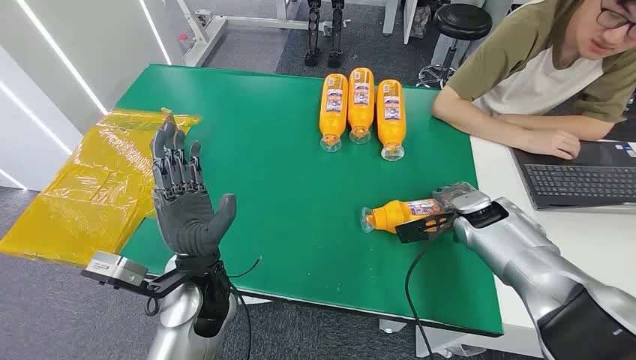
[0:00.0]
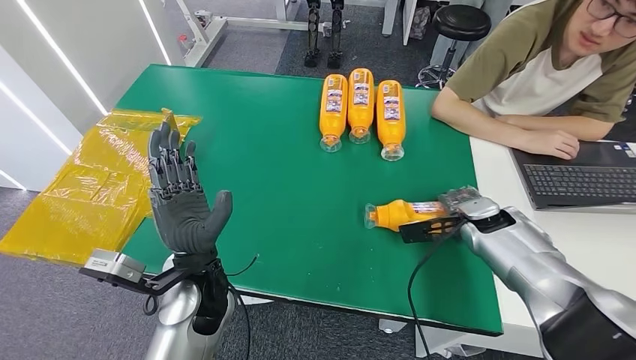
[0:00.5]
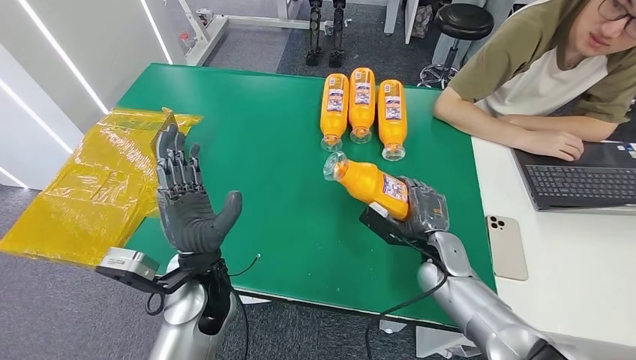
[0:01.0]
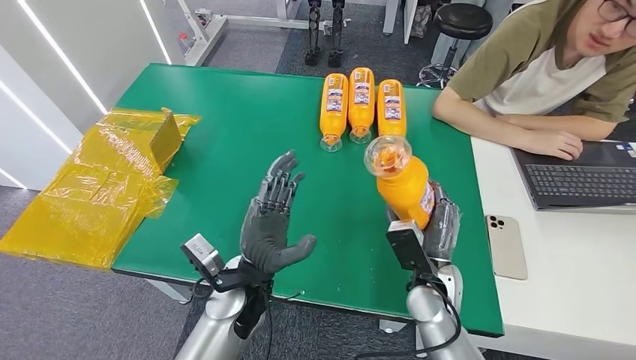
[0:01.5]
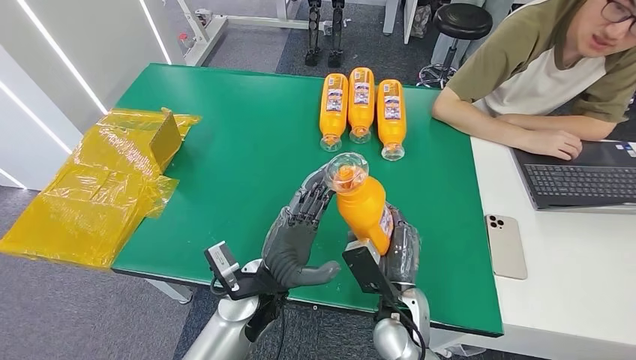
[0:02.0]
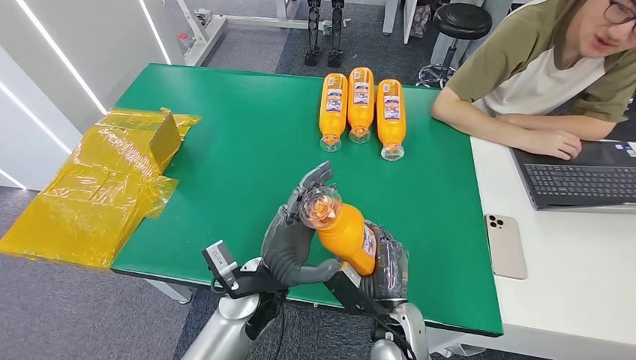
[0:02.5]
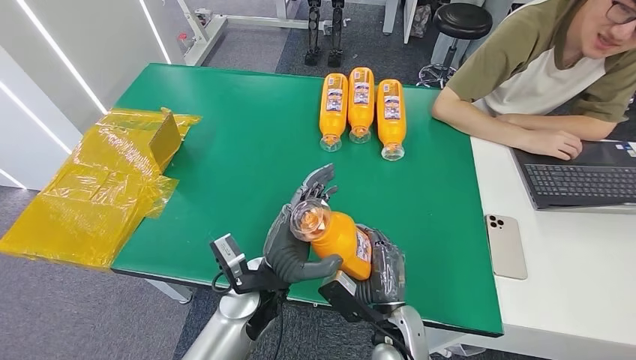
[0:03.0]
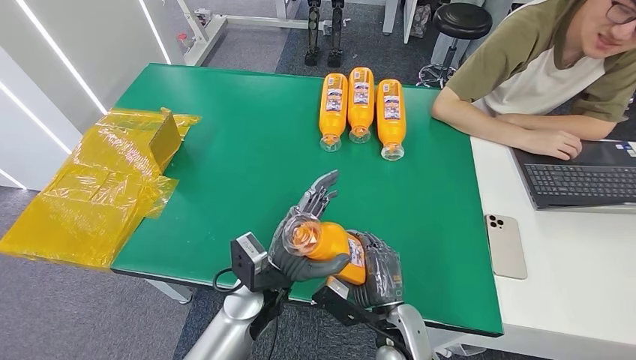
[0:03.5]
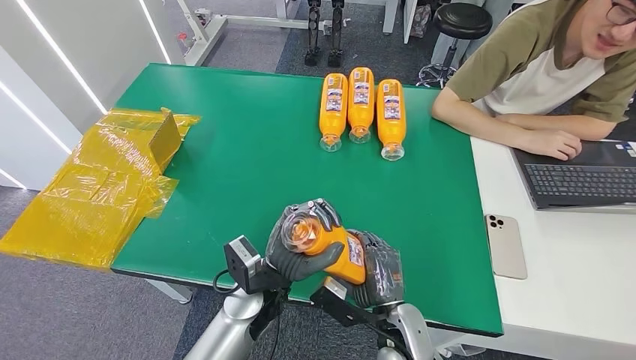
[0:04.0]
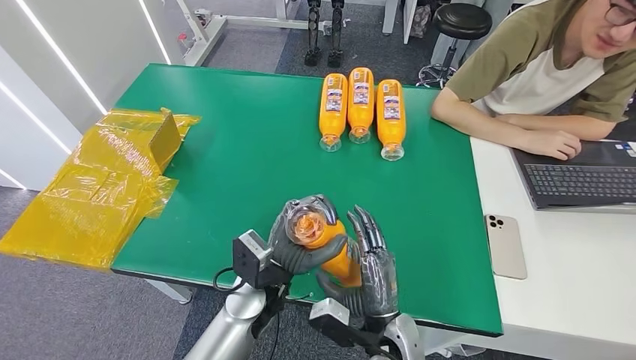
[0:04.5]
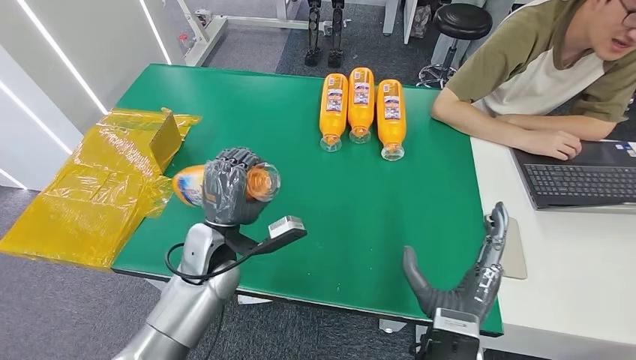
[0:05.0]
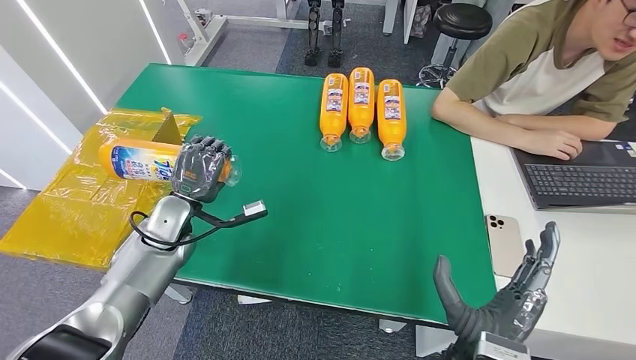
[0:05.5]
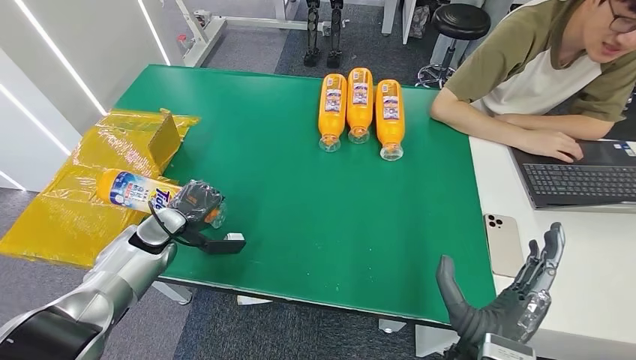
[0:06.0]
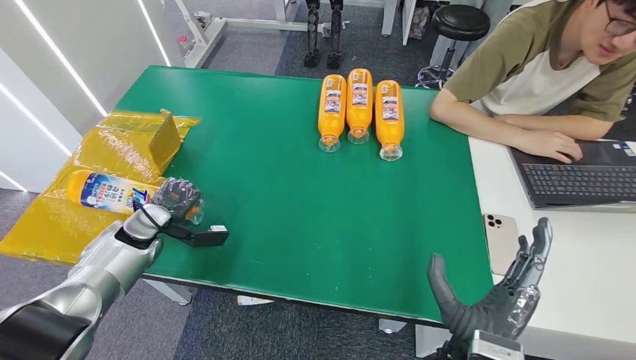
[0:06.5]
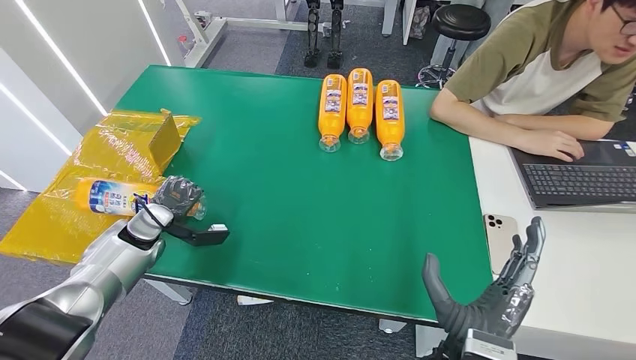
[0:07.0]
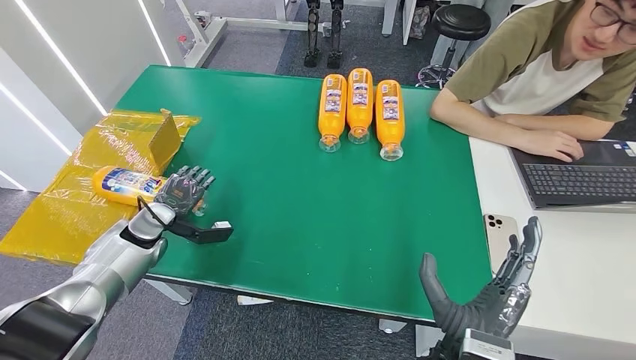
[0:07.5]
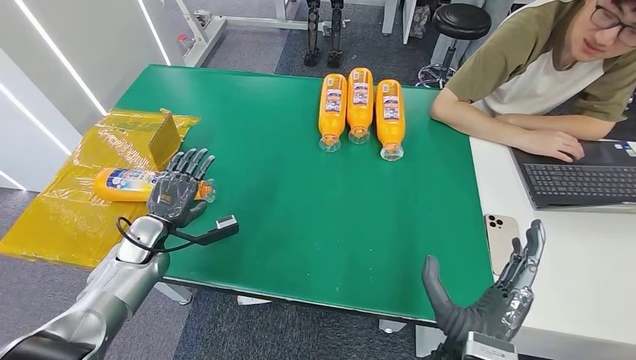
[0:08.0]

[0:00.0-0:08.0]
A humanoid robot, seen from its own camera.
Step, 0:00.0 to 0:02.0: Pick up the bottle from the table.
Step, 0:02.5 to 0:08.0: Turn the bottle to the front side.
0:04.0 to 0:06.0: The left hand moves to the left, some 30 cm. Meanwhile the right hand is displaced backward, upward and to the right by approximately 15 cm.

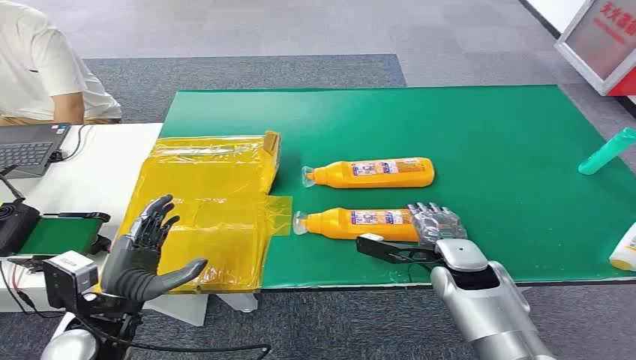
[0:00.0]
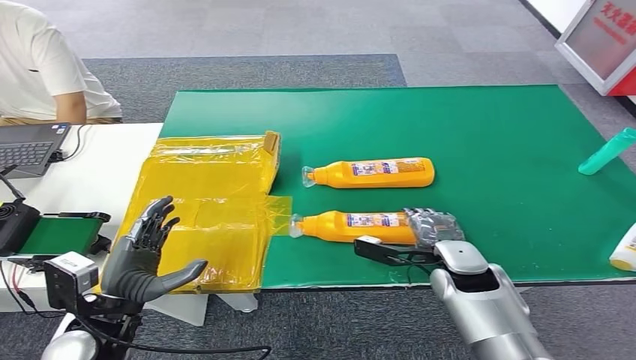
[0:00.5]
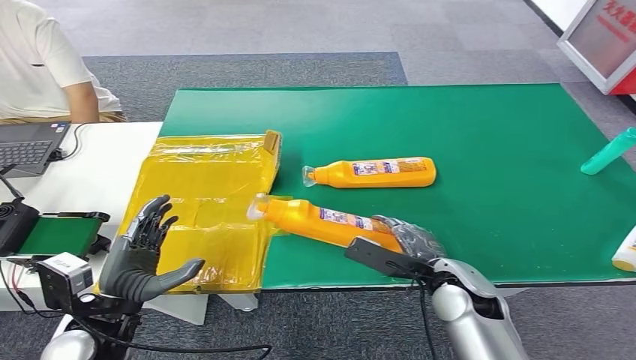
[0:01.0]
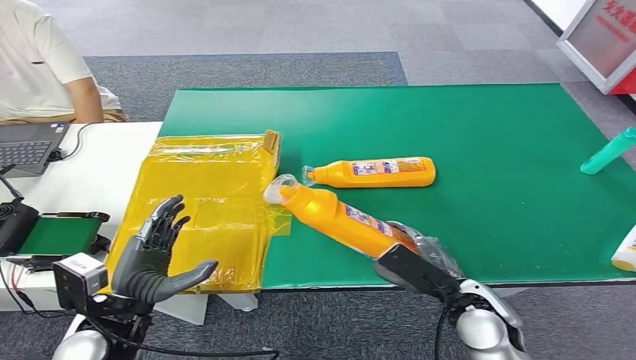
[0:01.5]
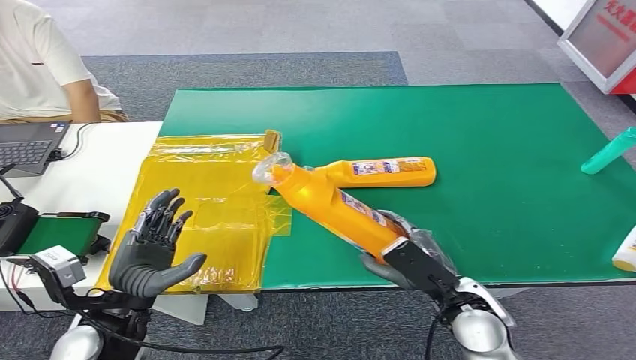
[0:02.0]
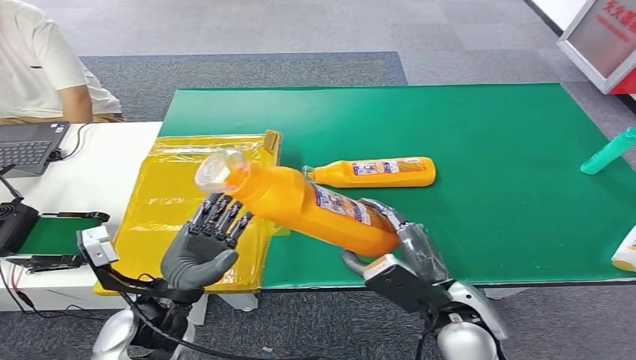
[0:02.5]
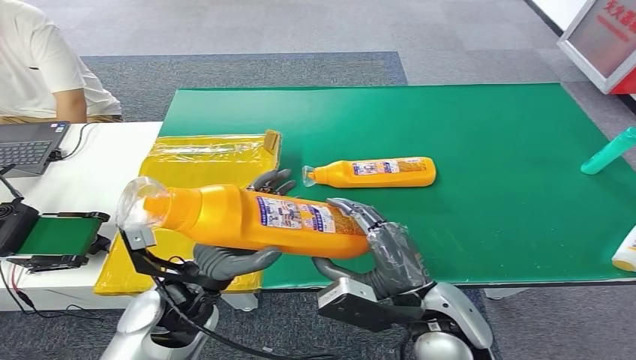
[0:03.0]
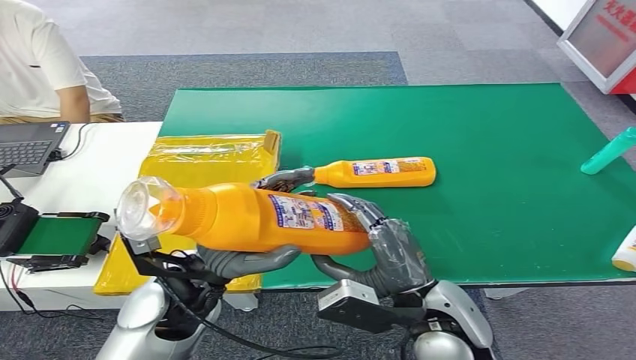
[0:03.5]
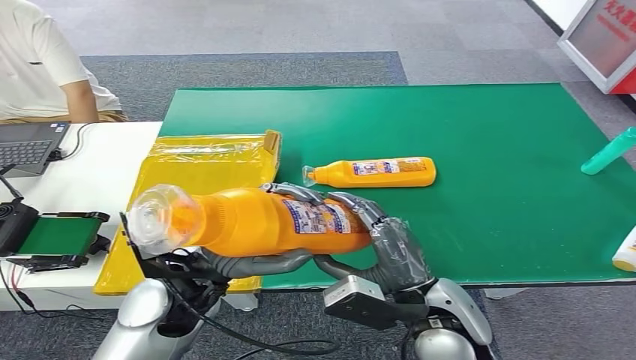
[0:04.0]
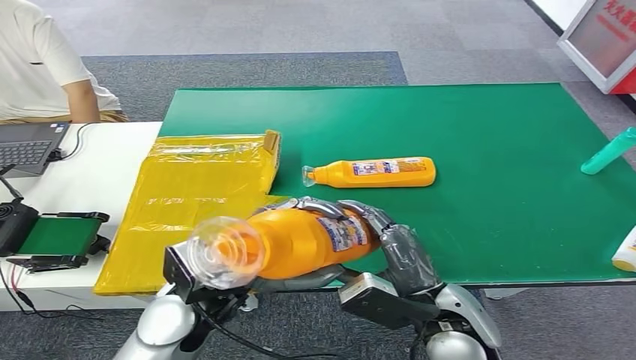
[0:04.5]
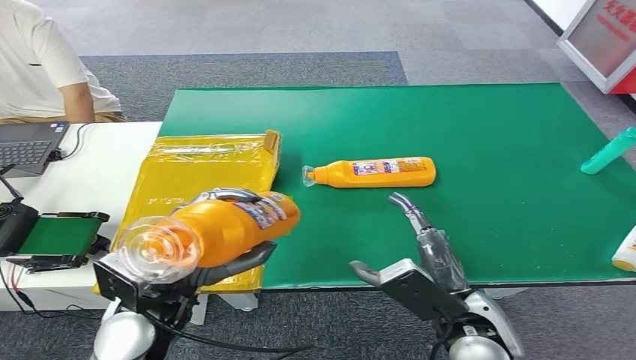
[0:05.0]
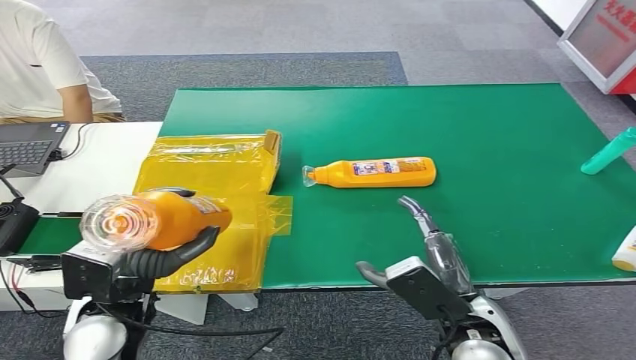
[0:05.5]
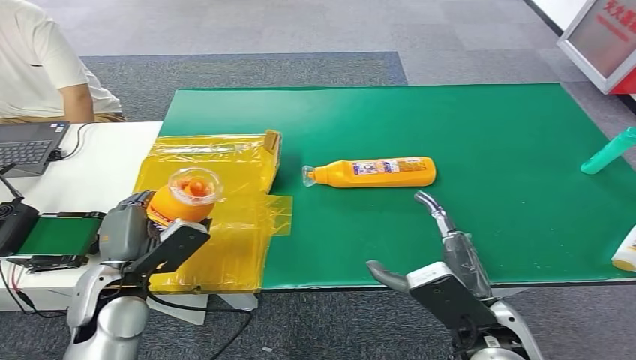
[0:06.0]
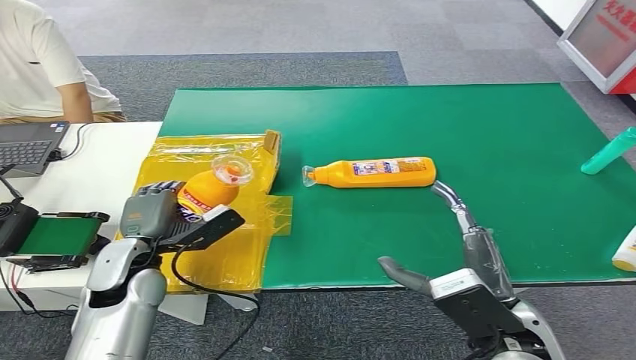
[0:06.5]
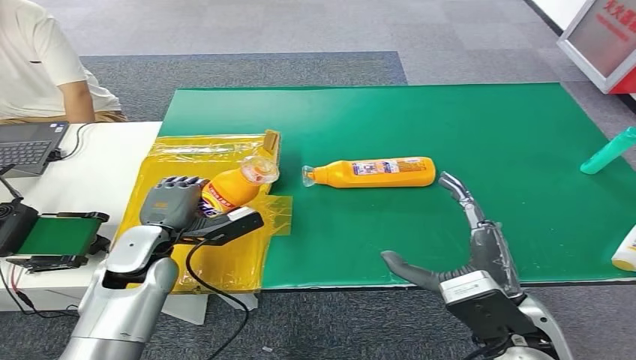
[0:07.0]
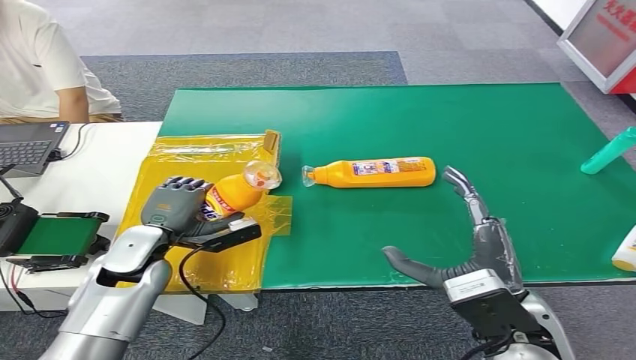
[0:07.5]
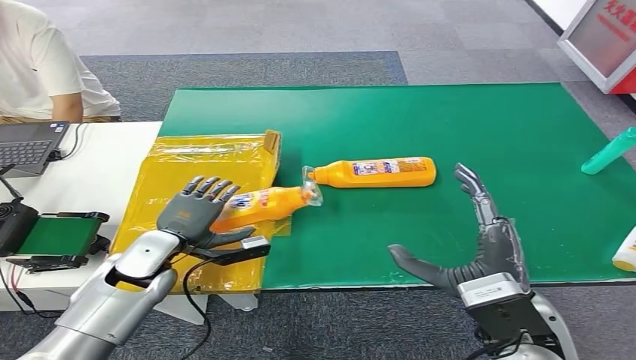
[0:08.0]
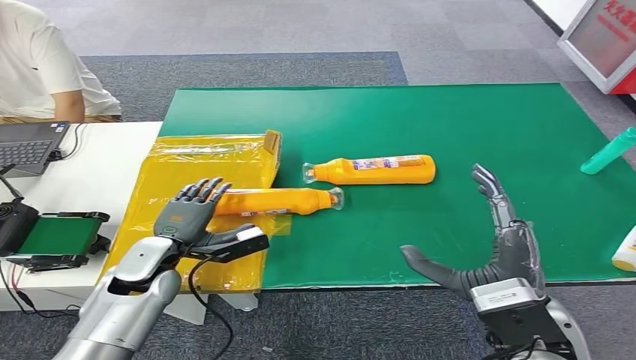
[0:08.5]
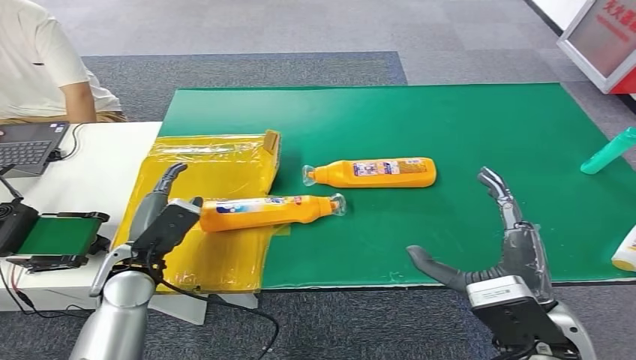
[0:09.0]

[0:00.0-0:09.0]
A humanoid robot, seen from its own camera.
Step, 0:00.0 to 0:01.5: Pick up the bottle from the table.
Step, 0:03.5 to 0:09.0: Turn the bottle to the front side.
0:02.0 to 0:04.5: The left hand heads to the right and upward, covering some 15 cm. Meanwhile the right hand heads upward, covering some 5 cm.
